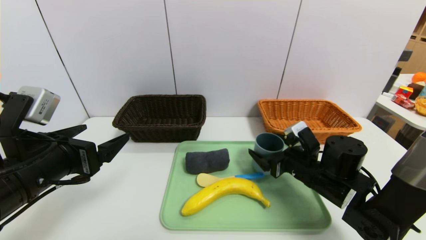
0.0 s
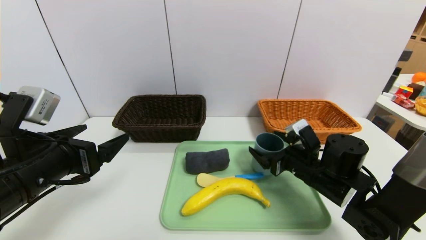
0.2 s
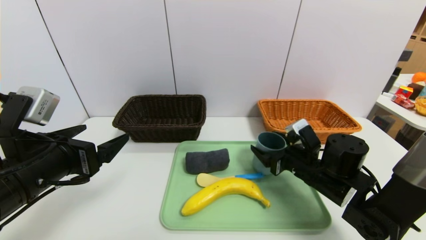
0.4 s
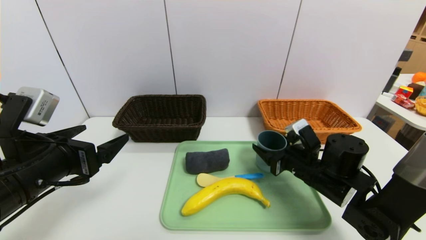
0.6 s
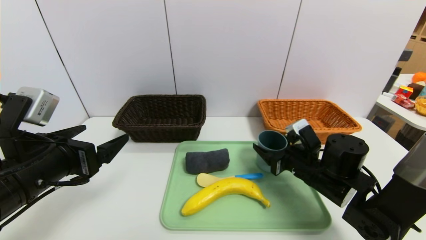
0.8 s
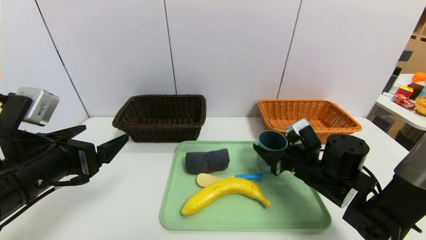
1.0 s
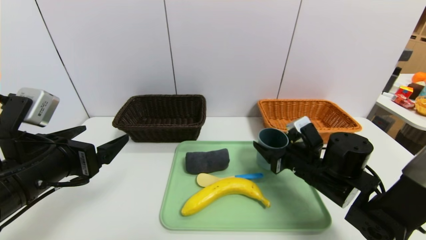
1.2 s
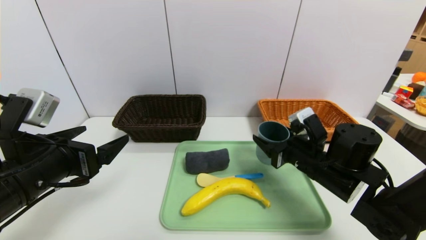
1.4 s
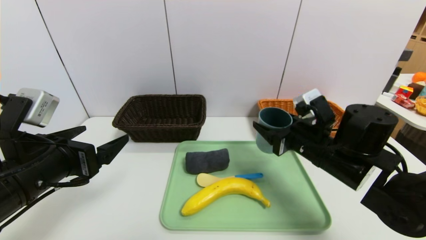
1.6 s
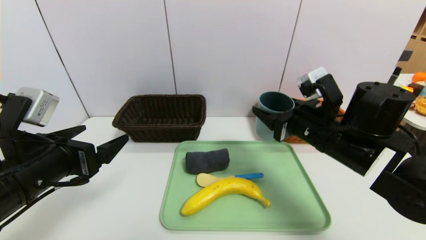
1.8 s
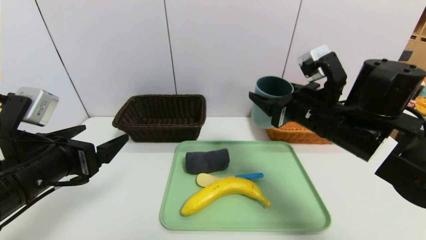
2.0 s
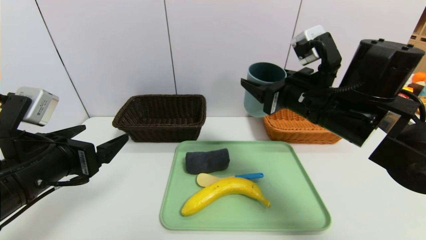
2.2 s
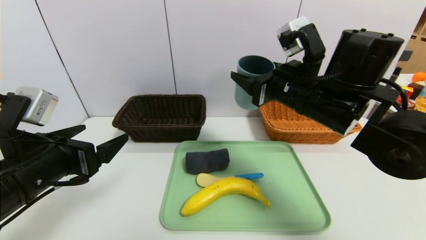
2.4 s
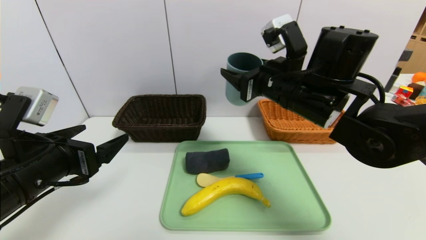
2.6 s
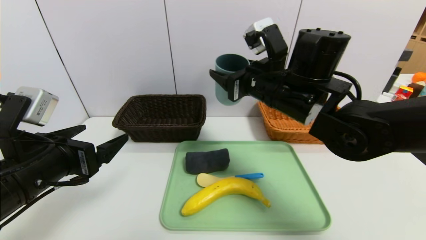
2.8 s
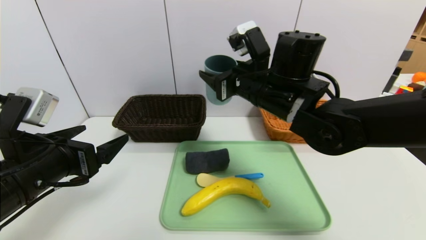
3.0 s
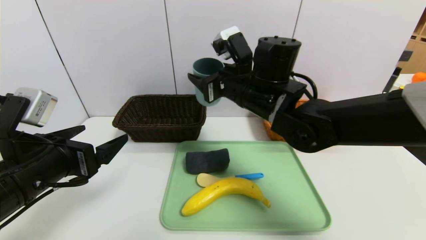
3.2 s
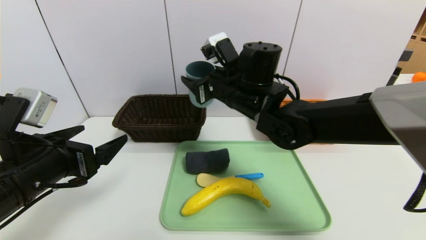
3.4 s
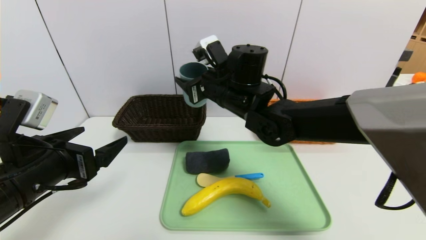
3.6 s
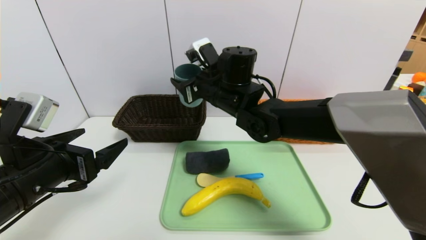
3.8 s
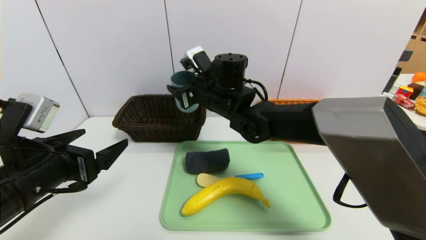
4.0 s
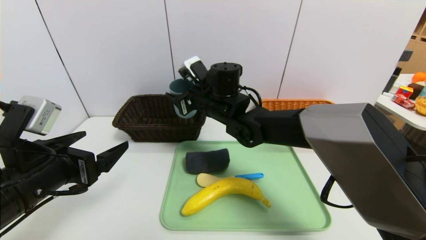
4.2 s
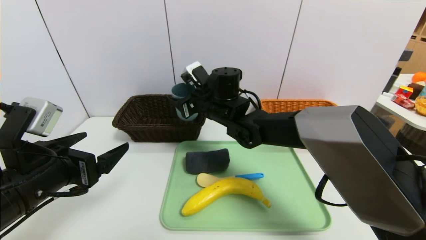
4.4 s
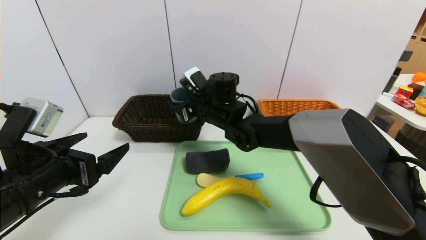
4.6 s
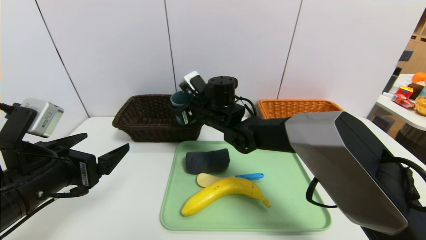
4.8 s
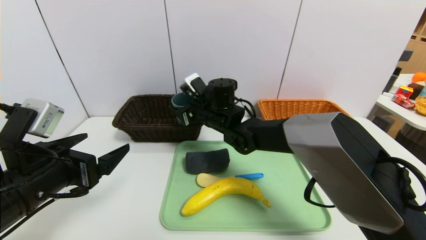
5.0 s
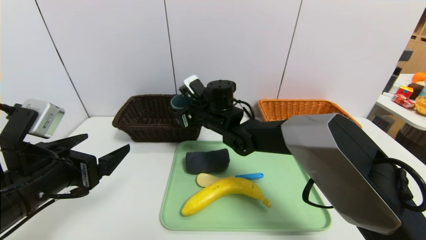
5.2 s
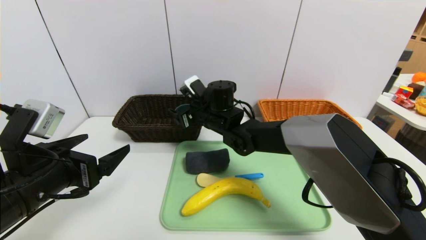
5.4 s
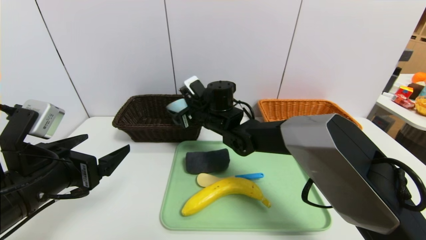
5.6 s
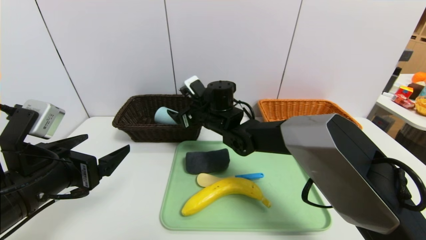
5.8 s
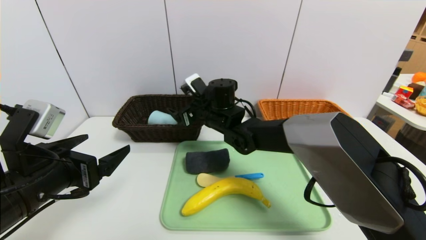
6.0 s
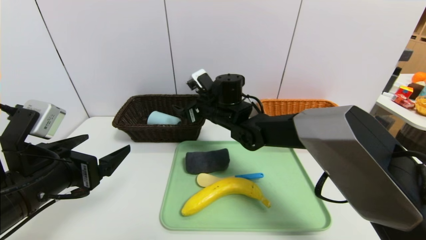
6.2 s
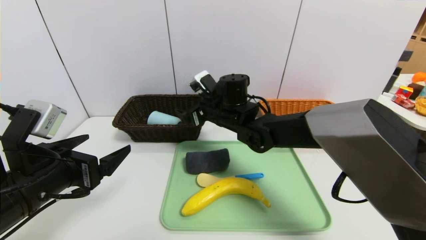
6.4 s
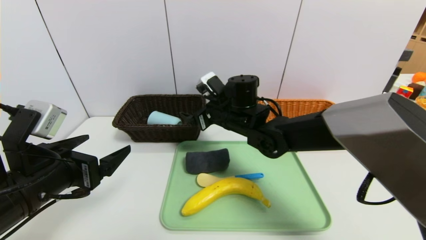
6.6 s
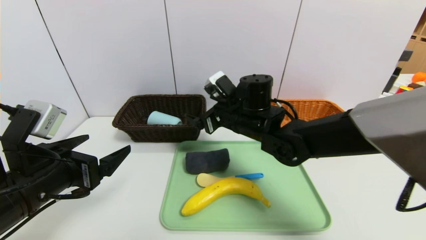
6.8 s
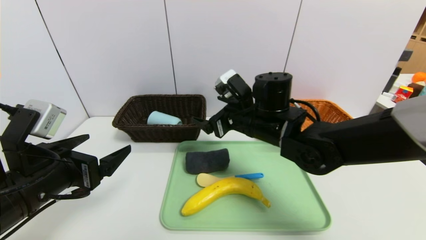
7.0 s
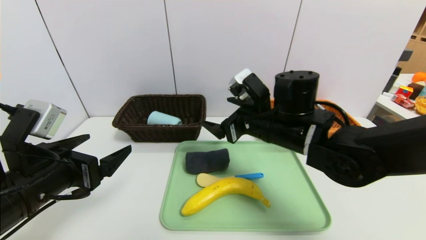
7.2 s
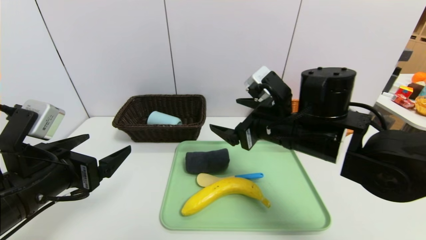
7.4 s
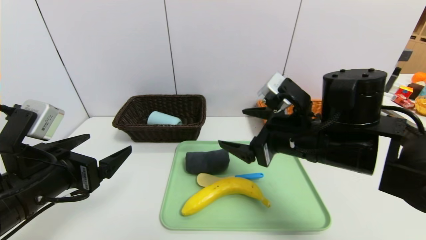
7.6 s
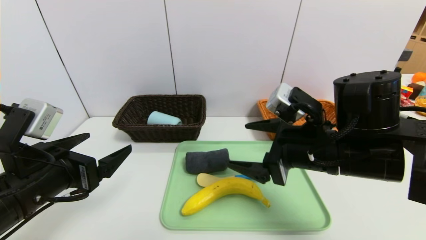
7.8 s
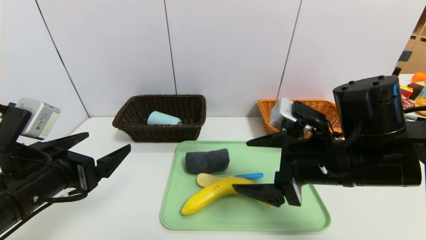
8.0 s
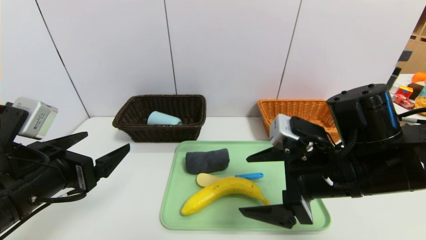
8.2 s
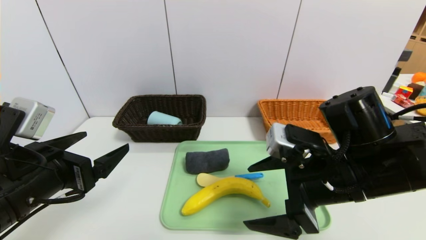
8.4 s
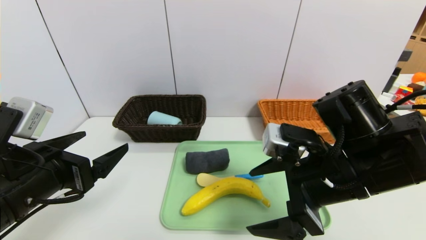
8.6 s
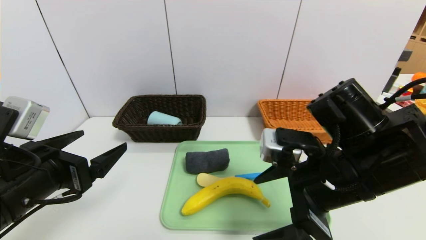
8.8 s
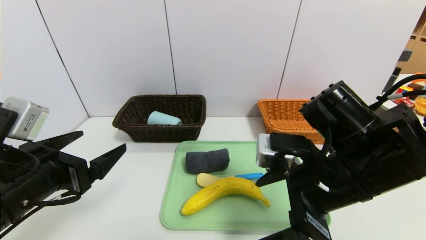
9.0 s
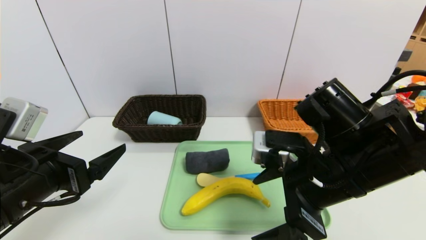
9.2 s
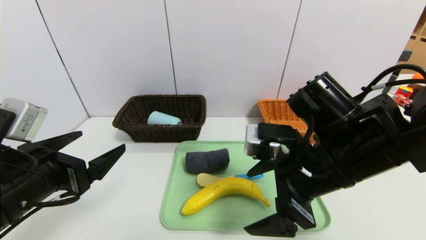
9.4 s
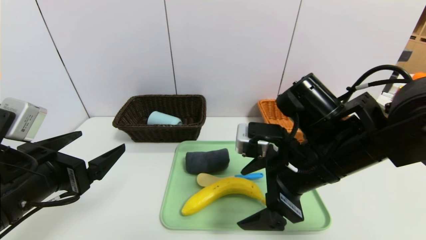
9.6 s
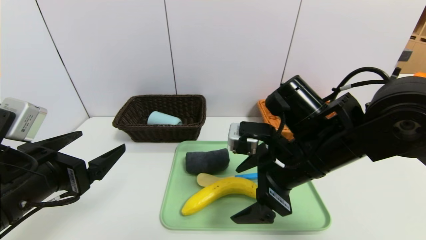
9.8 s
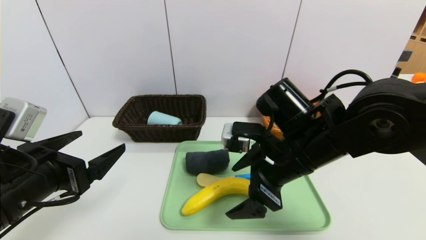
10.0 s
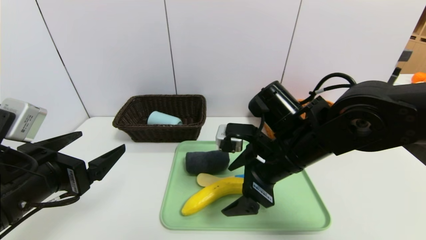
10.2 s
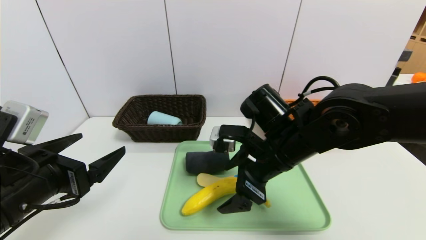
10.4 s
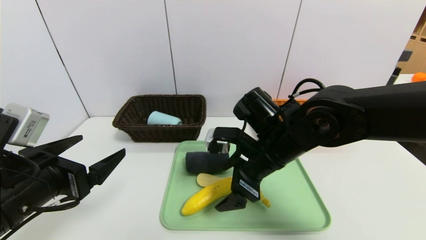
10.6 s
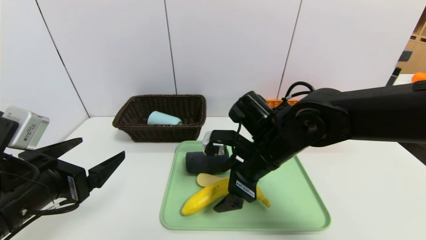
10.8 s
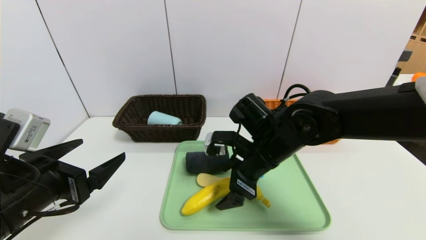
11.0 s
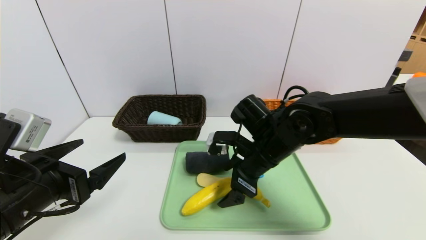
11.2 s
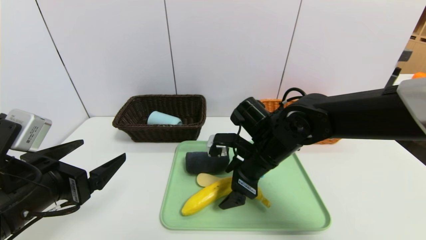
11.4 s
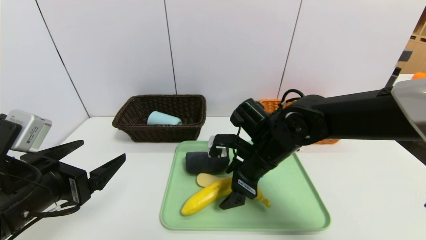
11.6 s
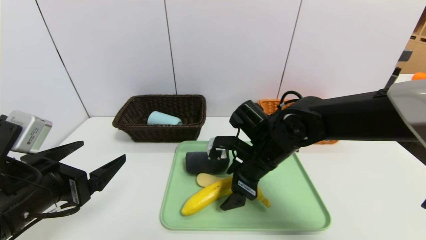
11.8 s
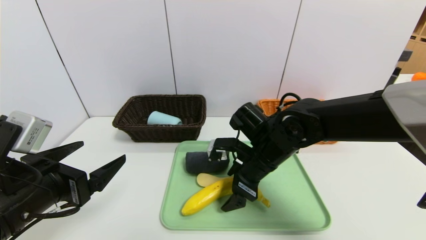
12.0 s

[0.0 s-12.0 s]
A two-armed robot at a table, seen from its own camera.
Task of the whole recording: place the food in the right basket with the right gripper, and place the non food items in the left basket with the left gripper.
0.0 to 1.6 s: The right gripper goes some 10 cm upward, and closes up.
1.6 to 3.0 s: The right gripper shifts approximately 15 cm to the left, upward and forward.
3.0 to 4.4 s: The right gripper heads to the left, forward and downward, covering approximately 15 cm.
4.4 to 6.0 s: The right gripper opens up.
6.0 to 7.6 s: The right gripper is displaced backward and to the right by some 20 cm.
9.0 to 10.4 s: The right gripper heads forward and to the left, covering about 10 cm.
10.4 to 12.0 s: The right gripper changes place by approximately 5 cm.

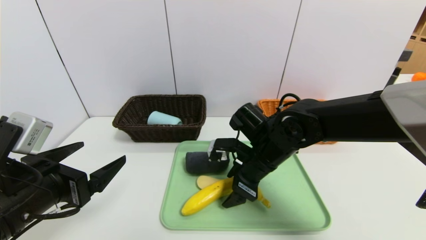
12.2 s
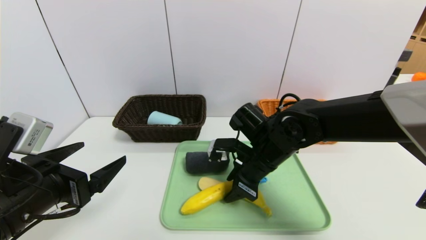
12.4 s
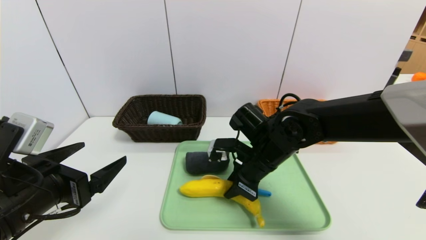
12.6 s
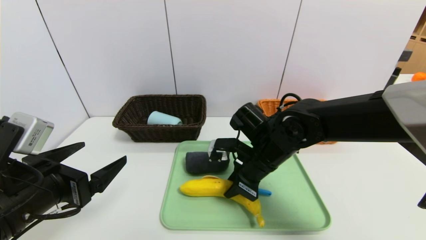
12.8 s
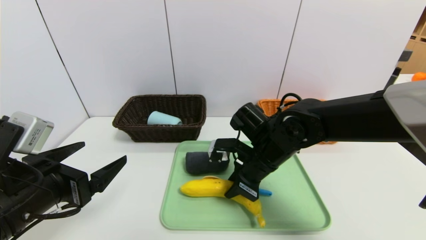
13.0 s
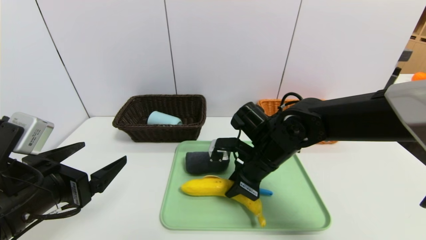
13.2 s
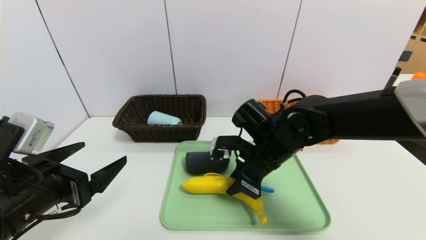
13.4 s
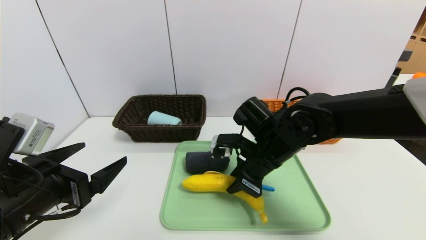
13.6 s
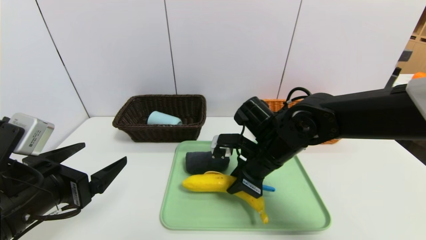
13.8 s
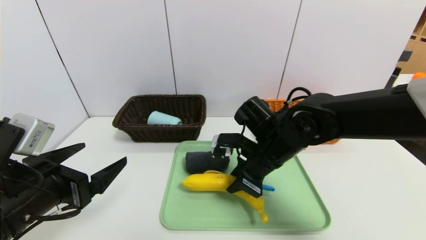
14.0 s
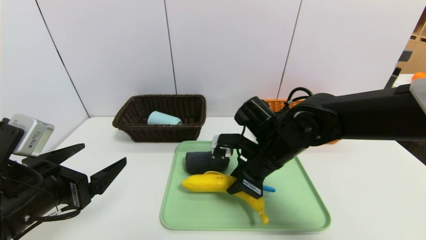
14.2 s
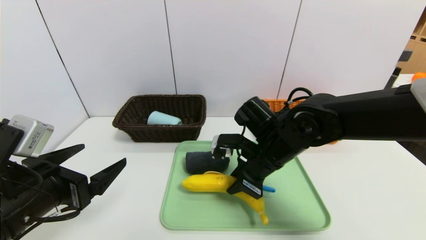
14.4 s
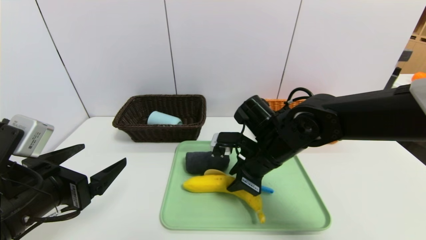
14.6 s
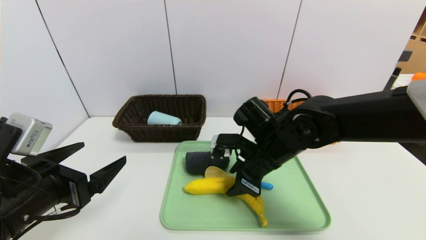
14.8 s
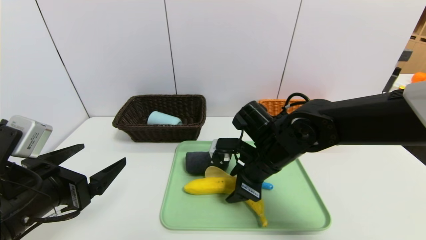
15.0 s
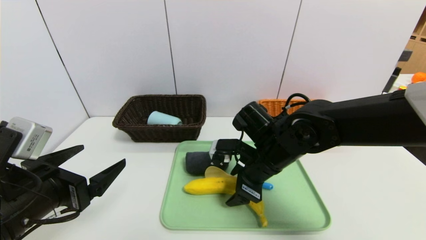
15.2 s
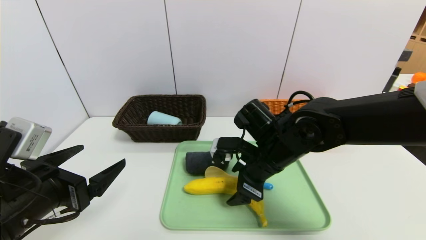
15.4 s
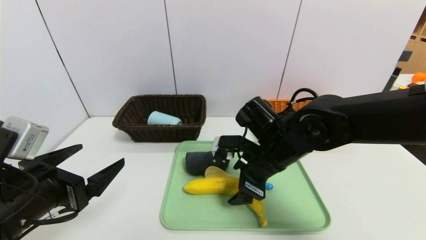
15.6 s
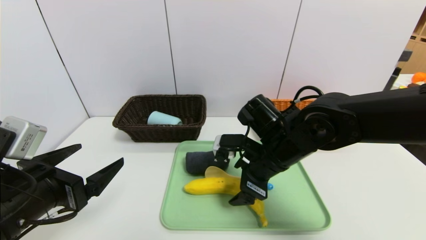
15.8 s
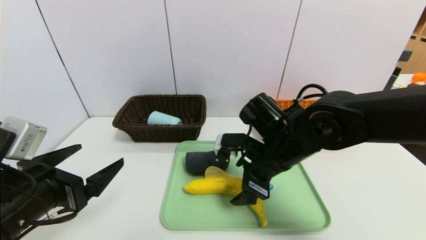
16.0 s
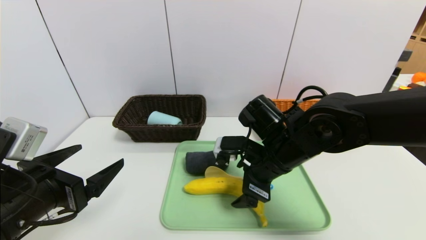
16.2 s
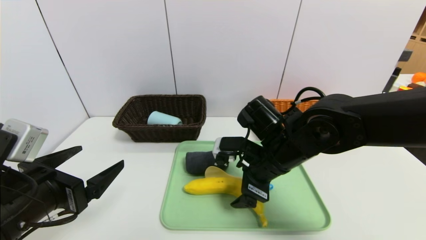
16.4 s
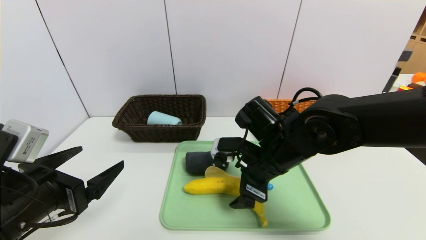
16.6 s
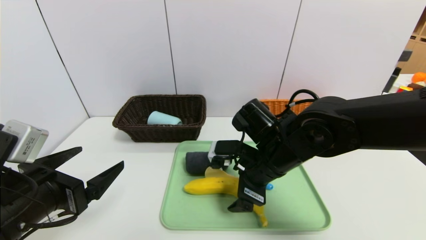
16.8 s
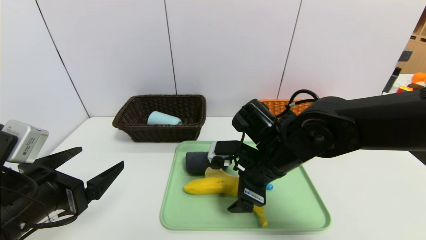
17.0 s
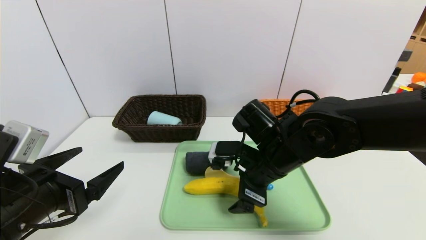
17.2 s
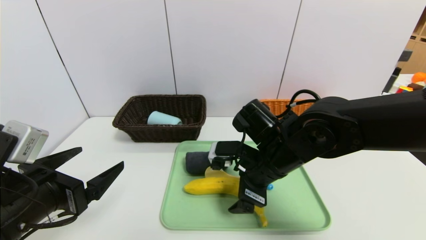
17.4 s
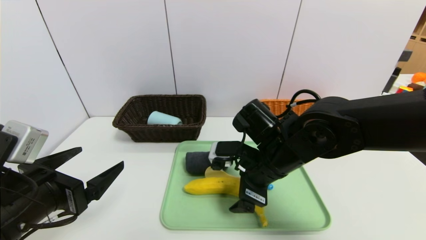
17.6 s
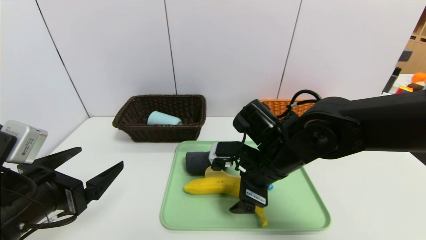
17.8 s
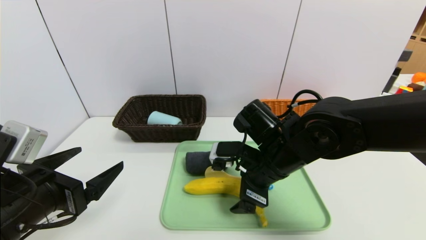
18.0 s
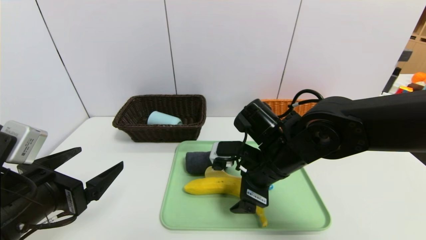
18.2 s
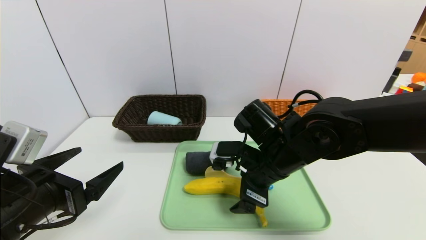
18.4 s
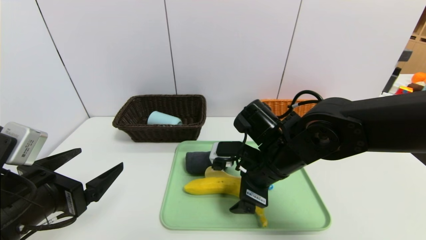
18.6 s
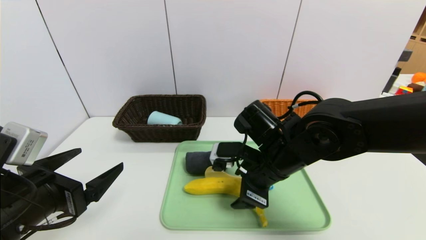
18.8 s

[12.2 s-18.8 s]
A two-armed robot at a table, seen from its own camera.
Task of the whole recording: place the food in the right basket with the right gripper, and place the non food items in the left basket with the left gripper.
12.2 to 13.8 s: The right gripper closes up.
13.8 to 15.4 s: The right gripper opens up.
15.4 to 17.2 s: The grippers make only small movements.
17.2 to 18.8 s: The right gripper closes up.
